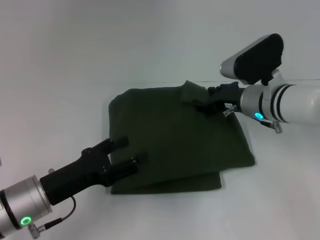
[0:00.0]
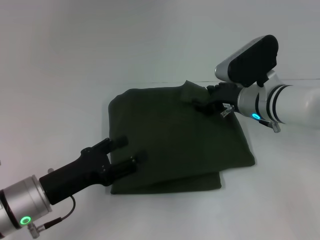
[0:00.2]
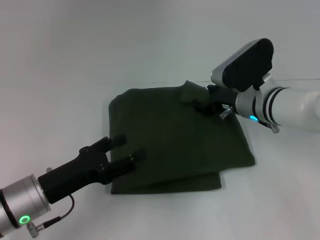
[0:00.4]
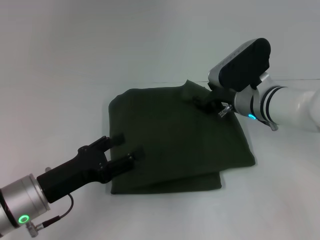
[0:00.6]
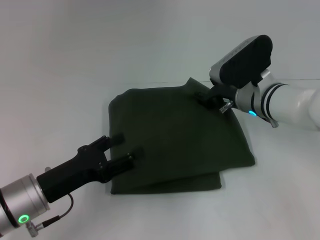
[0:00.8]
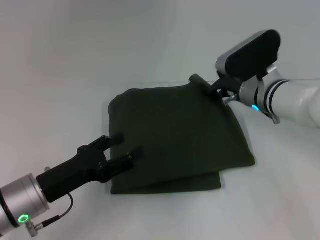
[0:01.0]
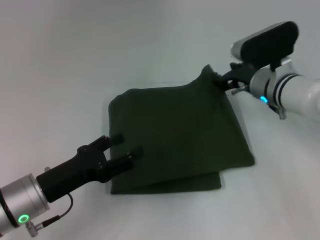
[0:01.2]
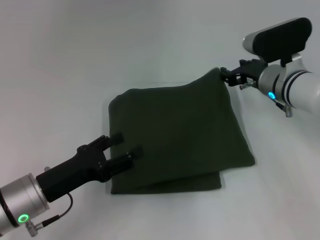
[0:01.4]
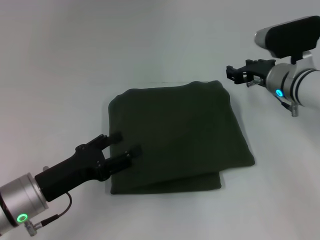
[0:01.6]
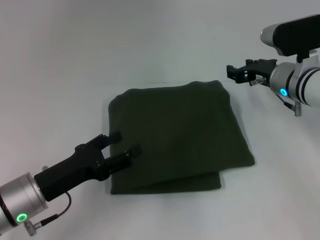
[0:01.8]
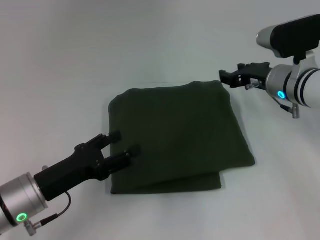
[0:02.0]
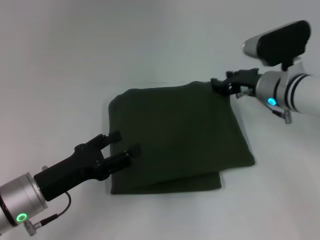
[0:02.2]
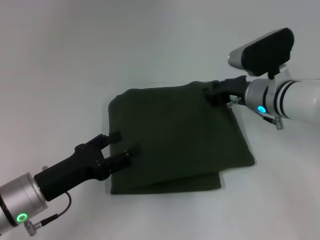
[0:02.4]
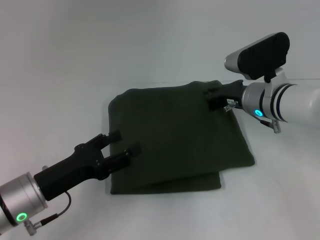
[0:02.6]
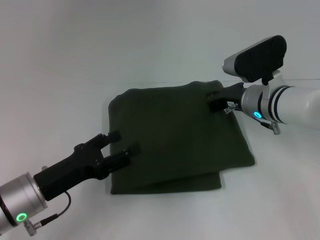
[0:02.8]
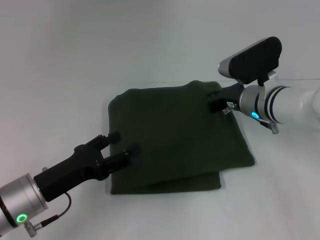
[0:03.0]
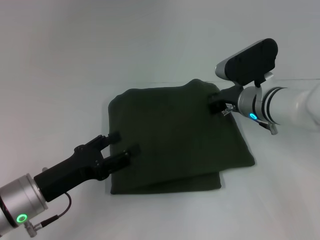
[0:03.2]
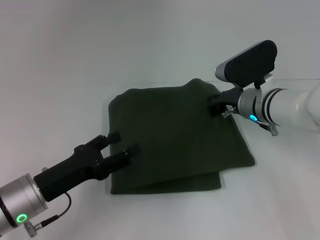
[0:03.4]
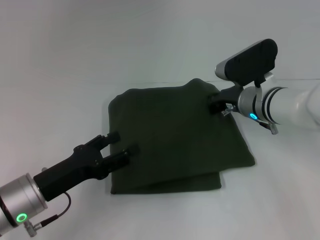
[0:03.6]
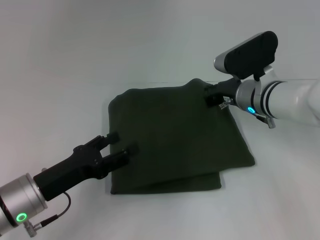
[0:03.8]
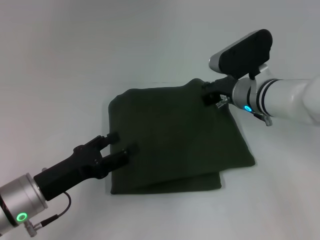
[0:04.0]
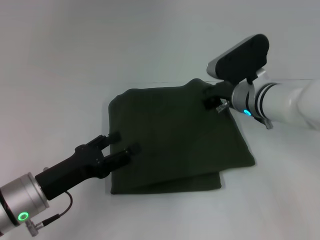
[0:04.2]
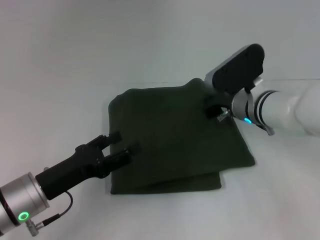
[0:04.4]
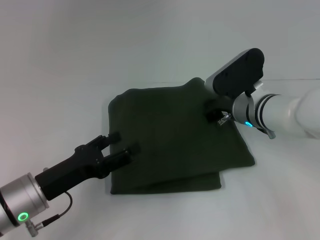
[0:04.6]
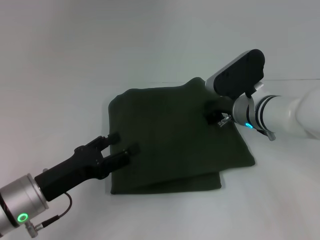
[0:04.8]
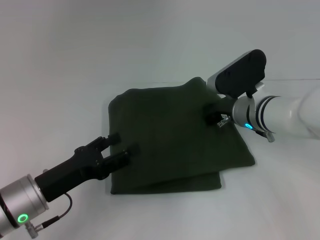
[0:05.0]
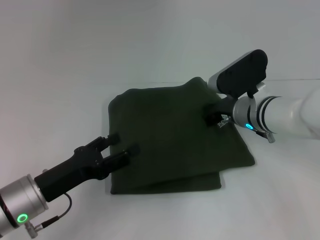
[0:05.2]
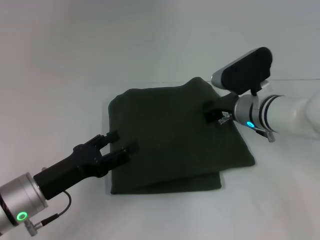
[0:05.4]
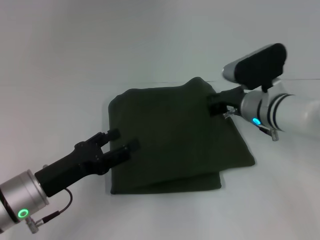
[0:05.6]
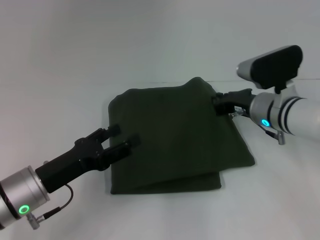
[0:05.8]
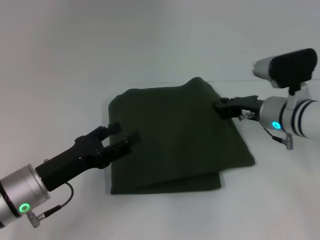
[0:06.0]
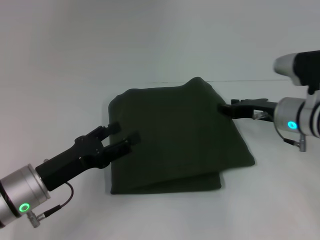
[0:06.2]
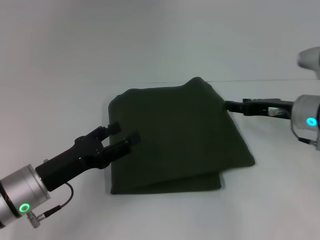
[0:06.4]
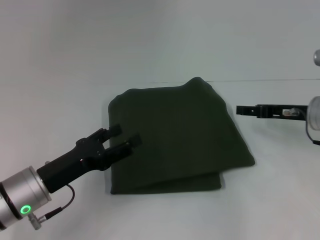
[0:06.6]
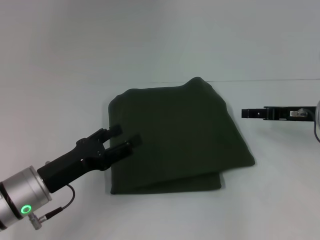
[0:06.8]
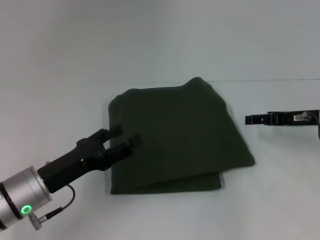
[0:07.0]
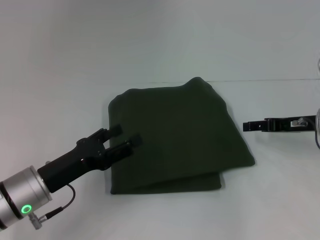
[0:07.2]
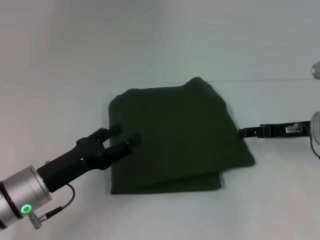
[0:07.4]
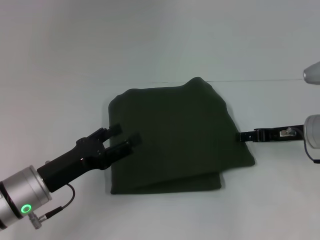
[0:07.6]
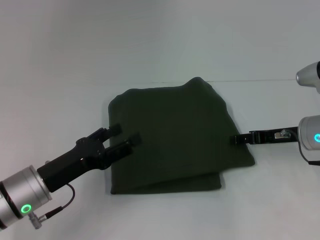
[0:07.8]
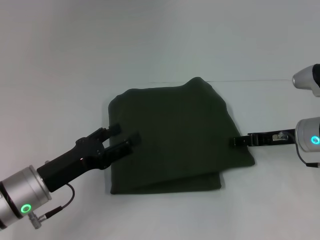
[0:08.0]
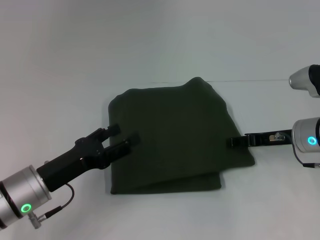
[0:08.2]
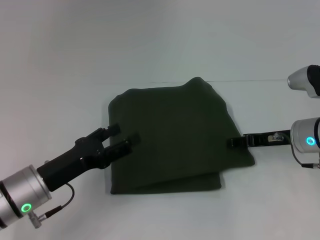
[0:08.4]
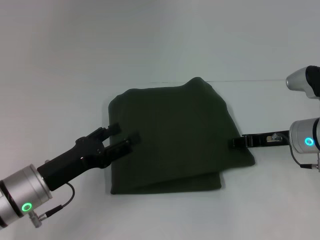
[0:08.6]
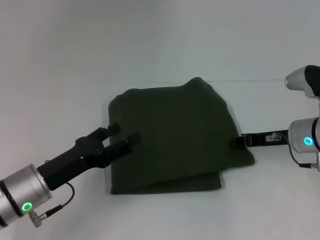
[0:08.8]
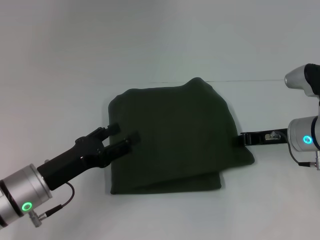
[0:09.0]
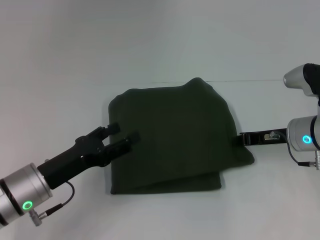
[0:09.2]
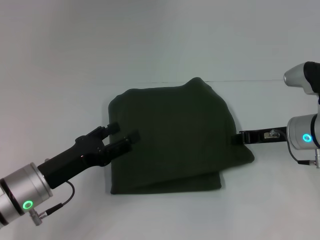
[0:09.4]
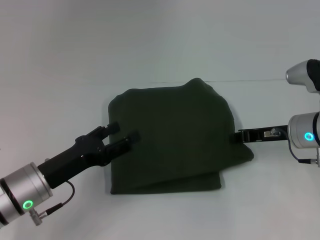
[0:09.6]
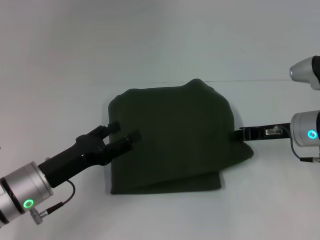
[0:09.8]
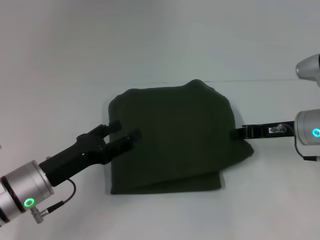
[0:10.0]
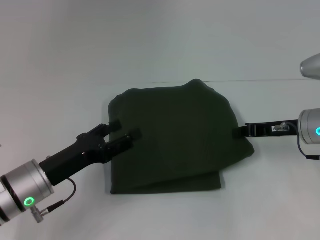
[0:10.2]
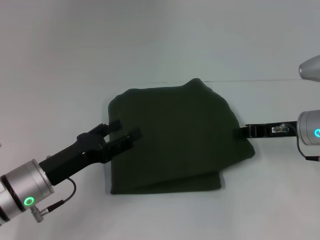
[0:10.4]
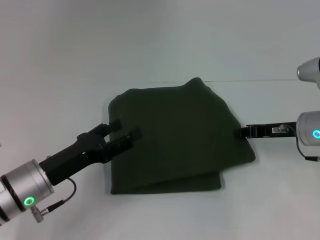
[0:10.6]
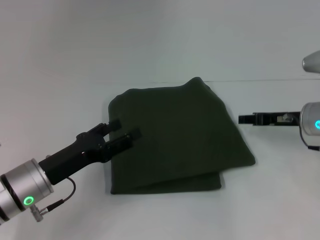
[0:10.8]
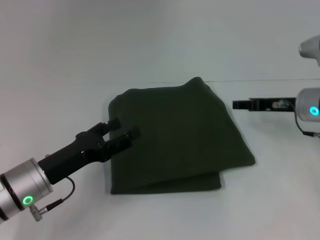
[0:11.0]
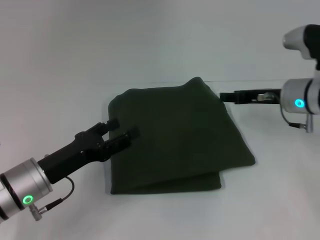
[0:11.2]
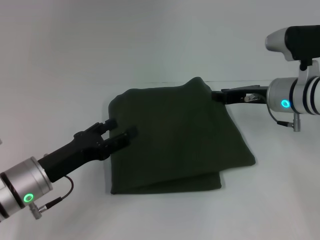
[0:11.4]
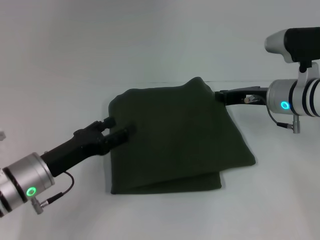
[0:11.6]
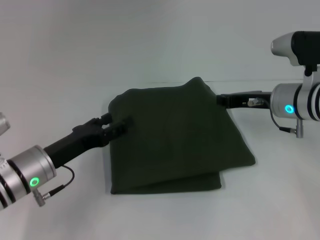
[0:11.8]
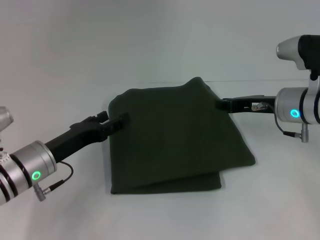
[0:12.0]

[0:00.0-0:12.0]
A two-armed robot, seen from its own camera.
0:00.0 to 0:01.6: The grippers stay close to where they were, moving slightly.
0:01.6 to 0:03.0: The right gripper closes up.
0:03.0 to 0:04.4: The grippers stay close to where they were, moving slightly.
0:04.4 to 0:06.0: The right gripper moves approximately 5 cm.
0:06.0 to 0:07.6: The right gripper goes roughly 5 cm to the right, and opens its fingers.
0:07.6 to 0:09.0: The right gripper closes.
0:09.0 to 0:10.4: There are only small adjustments of the grippers.
0:10.4 to 0:12.0: The right gripper opens, then closes once more.

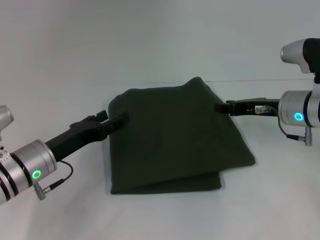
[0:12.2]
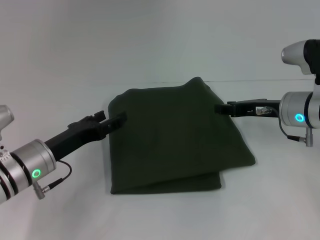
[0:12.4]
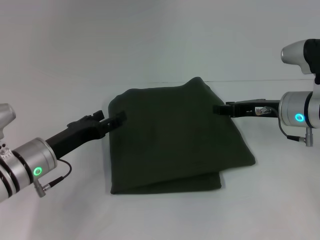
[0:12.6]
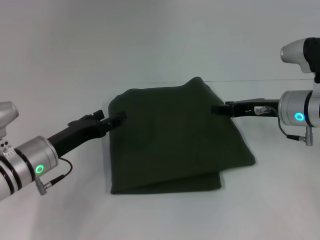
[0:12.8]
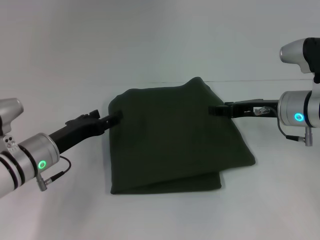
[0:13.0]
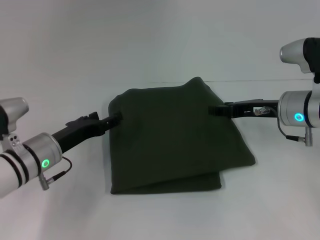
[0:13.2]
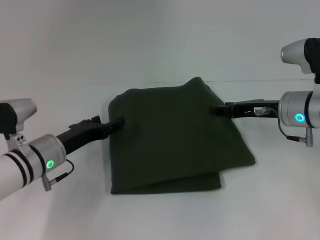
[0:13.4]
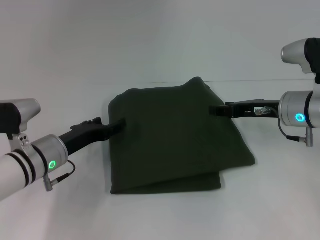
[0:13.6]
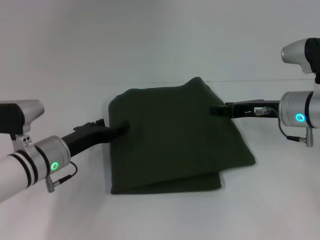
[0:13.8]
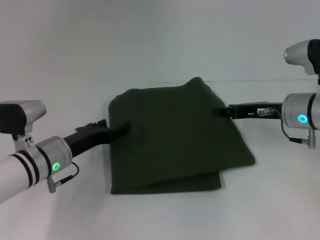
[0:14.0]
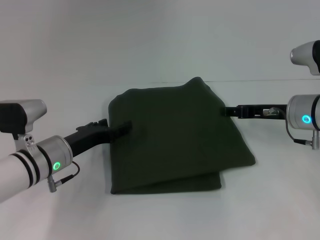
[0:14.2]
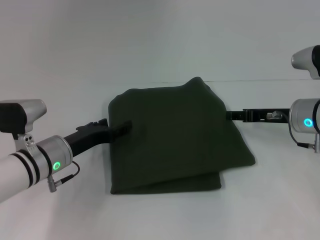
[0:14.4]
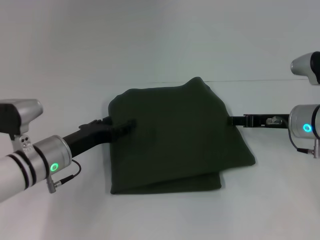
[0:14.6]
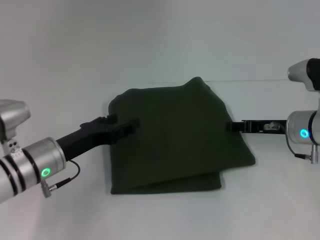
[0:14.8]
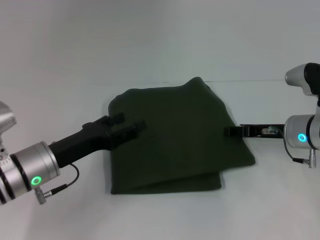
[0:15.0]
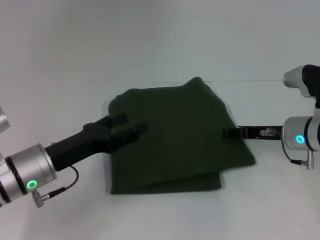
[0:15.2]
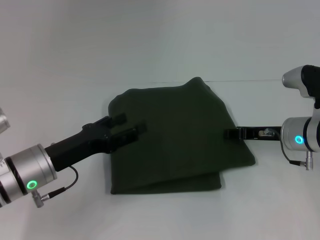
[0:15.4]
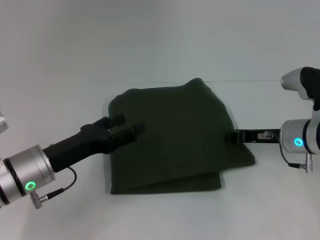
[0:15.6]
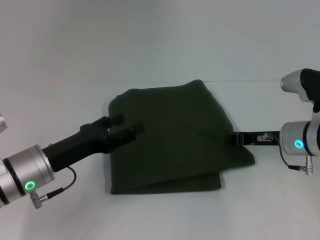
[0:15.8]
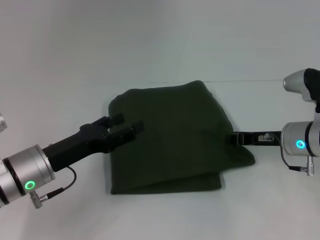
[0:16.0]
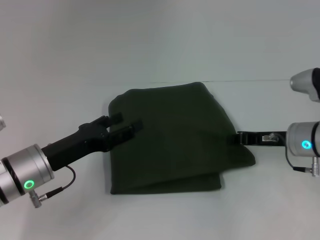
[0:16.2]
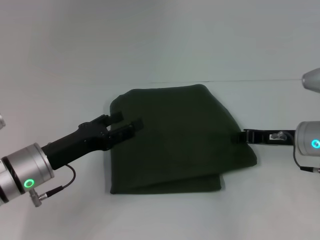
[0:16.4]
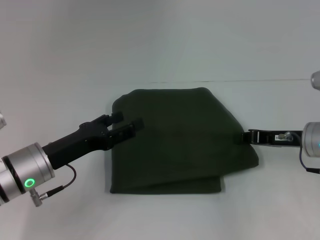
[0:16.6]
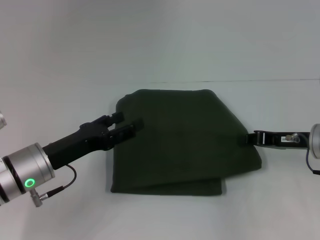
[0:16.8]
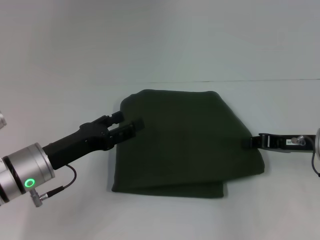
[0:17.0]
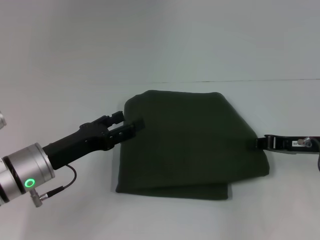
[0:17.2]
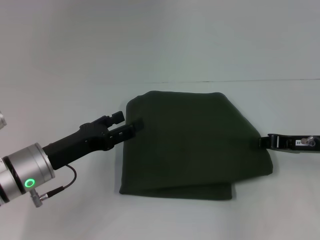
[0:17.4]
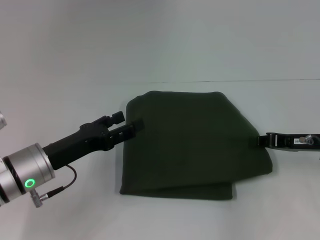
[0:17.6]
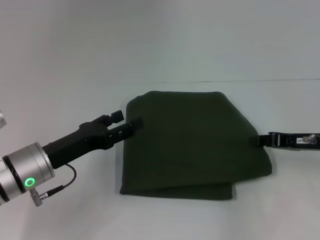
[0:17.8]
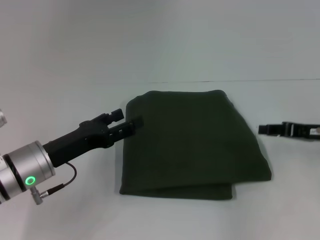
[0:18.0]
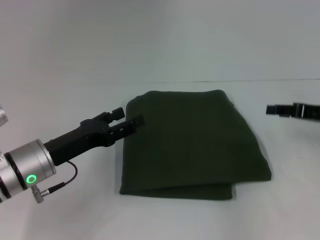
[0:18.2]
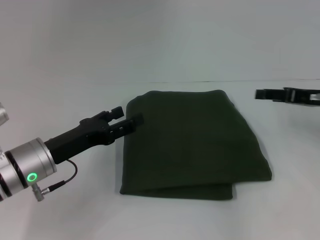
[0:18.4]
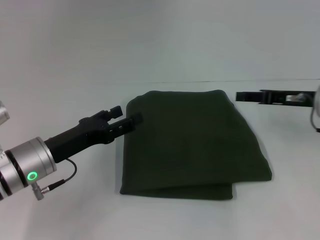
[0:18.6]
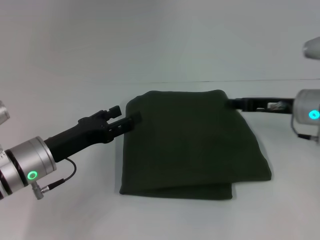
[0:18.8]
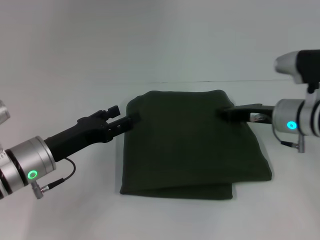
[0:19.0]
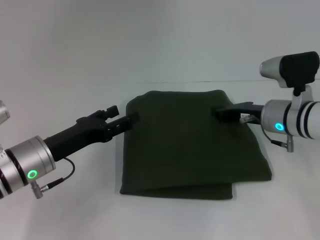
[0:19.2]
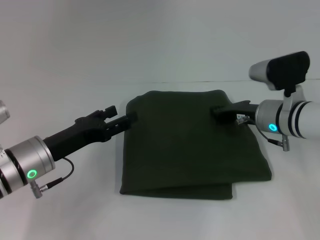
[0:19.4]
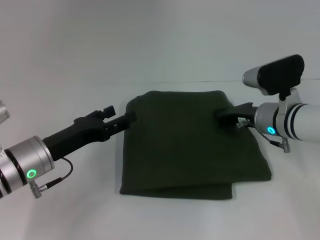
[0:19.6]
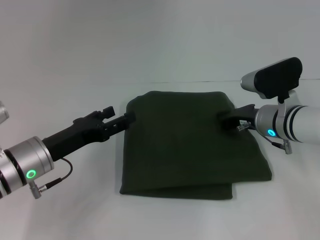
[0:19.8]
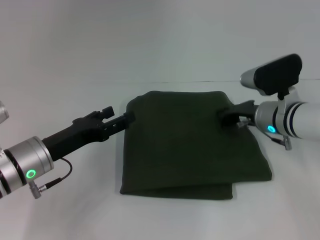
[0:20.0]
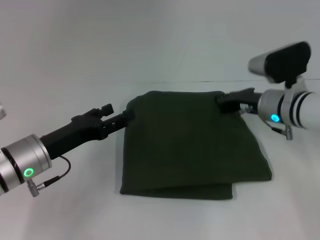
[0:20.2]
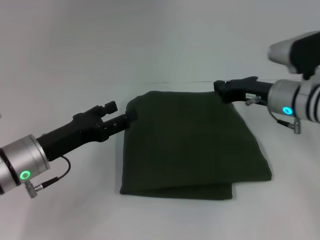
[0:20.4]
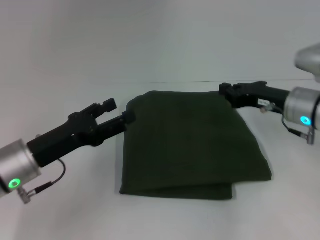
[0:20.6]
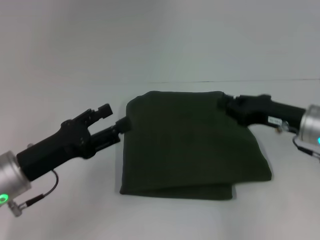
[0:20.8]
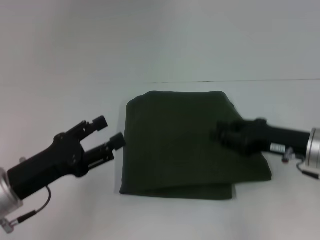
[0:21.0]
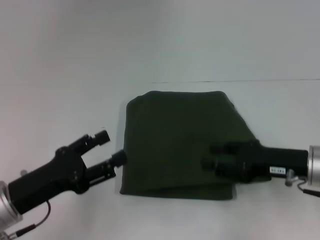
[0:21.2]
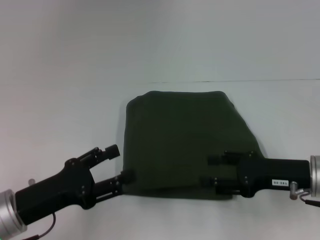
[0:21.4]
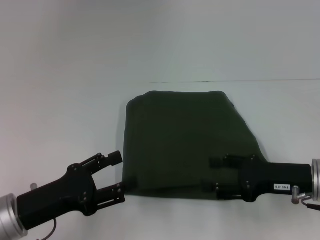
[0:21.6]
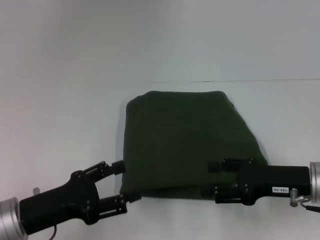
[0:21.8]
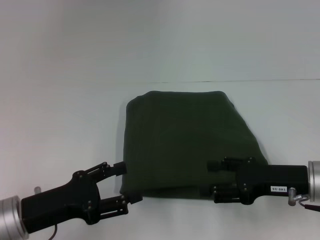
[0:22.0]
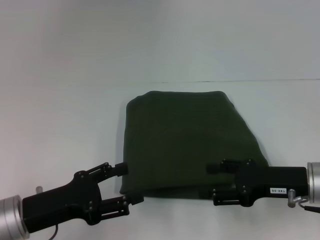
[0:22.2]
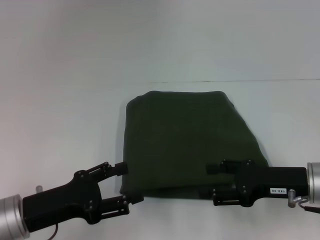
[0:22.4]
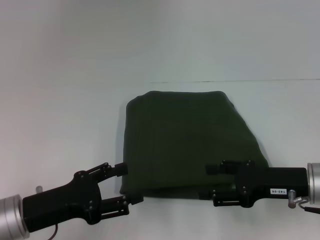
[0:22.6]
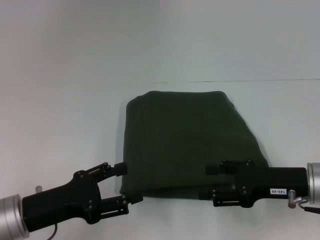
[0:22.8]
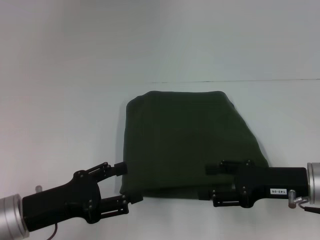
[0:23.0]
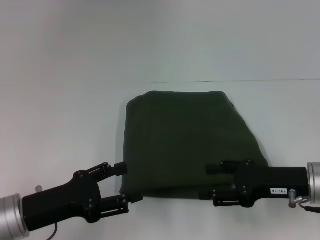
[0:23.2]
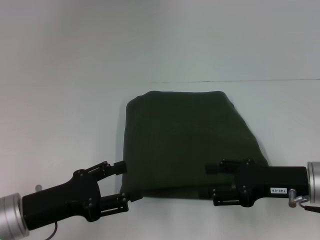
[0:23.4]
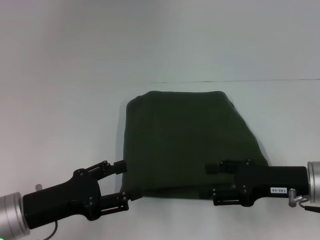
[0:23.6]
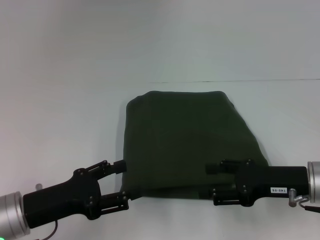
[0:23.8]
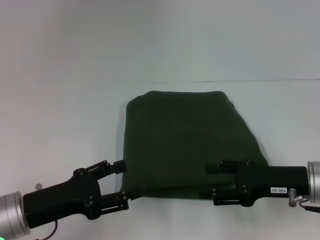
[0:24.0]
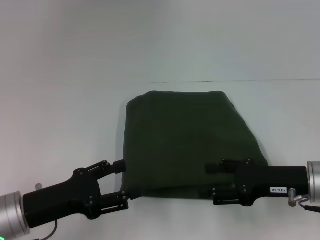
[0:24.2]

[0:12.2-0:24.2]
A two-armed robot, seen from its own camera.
0:12.2 to 0:13.8: The grippers make only small movements.
0:13.8 to 0:15.2: The left gripper moves approximately 5 cm.
0:15.2 to 0:16.6: The right gripper closes its fingers.
0:16.6 to 0:18.2: The right gripper goes about 5 cm to the right, and opens its fingers.
0:18.2 to 0:19.8: The right gripper goes roughly 15 cm to the left and downward, and closes.
0:19.8 to 0:21.2: The left gripper heads backward, covering approximately 10 cm; the right gripper moves backward and to the right, about 10 cm, and opens its fingers.
0:21.2 to 0:22.6: The right gripper opens.
0:22.6 to 0:24.2: Both grippers stay put.
